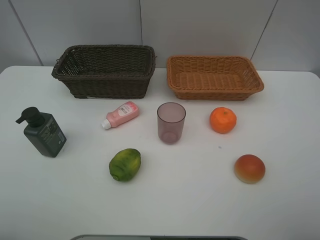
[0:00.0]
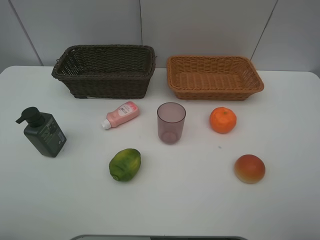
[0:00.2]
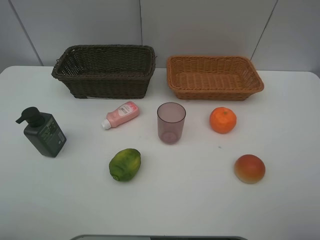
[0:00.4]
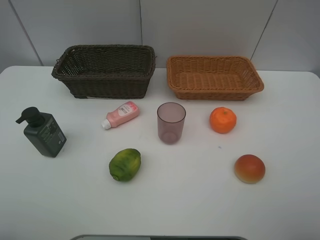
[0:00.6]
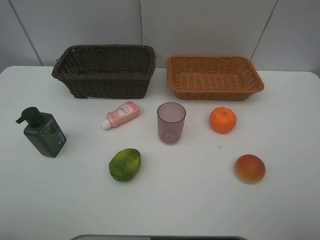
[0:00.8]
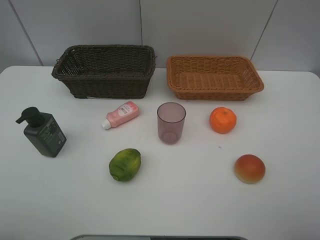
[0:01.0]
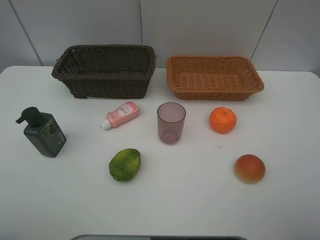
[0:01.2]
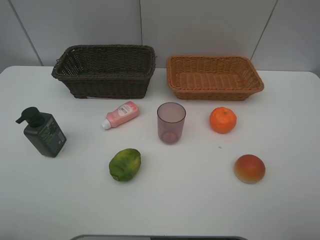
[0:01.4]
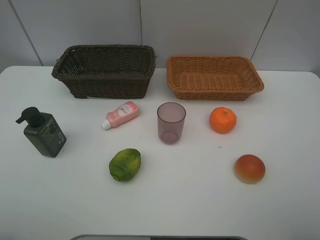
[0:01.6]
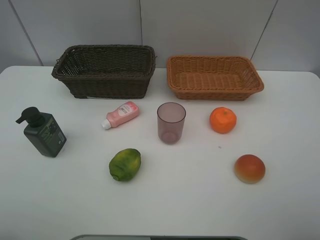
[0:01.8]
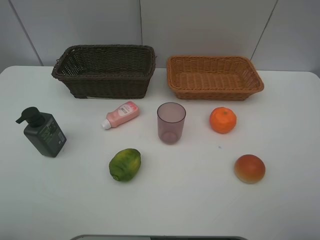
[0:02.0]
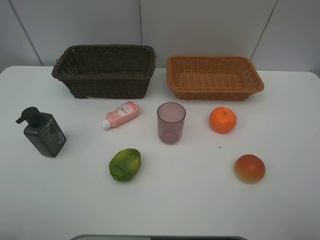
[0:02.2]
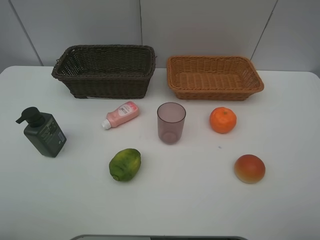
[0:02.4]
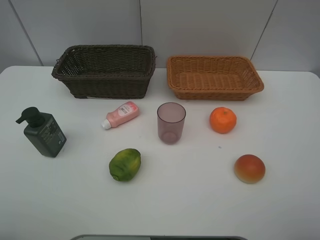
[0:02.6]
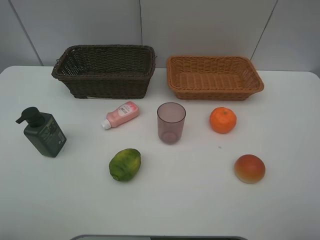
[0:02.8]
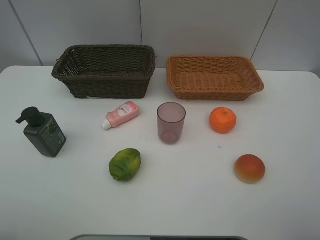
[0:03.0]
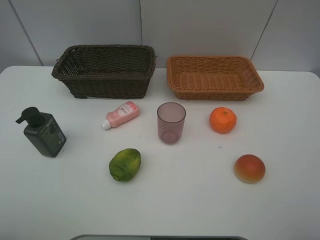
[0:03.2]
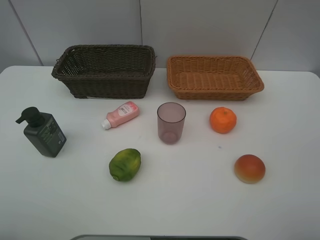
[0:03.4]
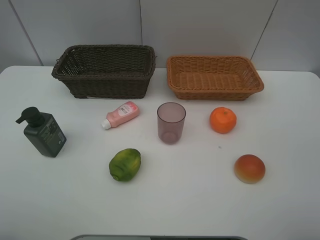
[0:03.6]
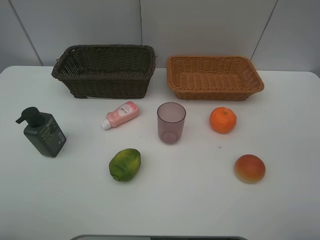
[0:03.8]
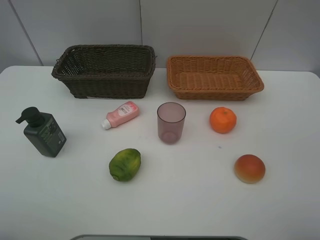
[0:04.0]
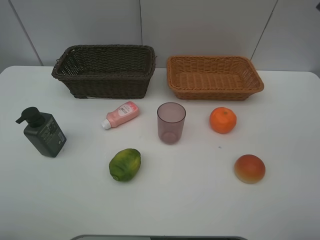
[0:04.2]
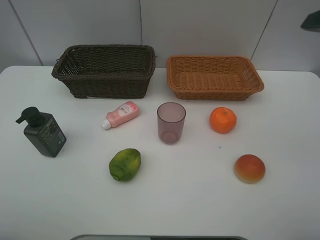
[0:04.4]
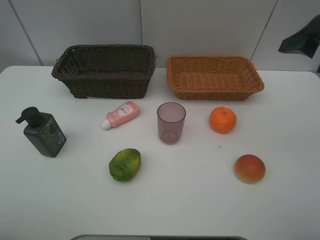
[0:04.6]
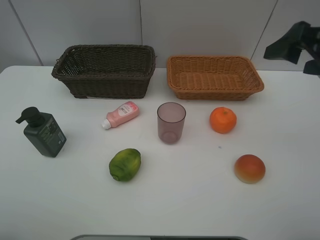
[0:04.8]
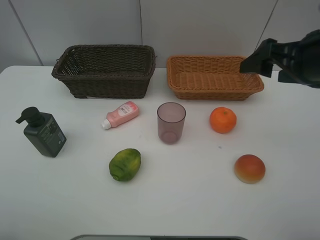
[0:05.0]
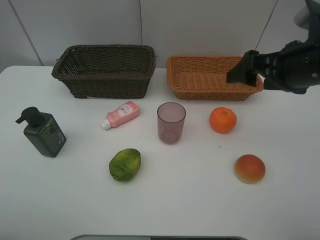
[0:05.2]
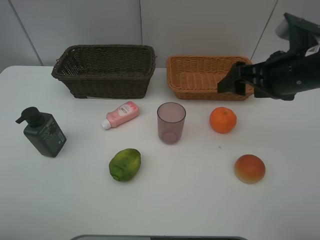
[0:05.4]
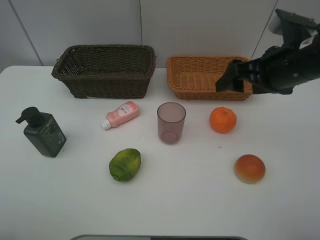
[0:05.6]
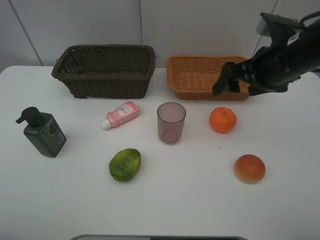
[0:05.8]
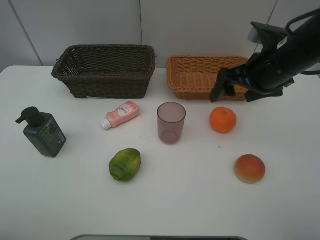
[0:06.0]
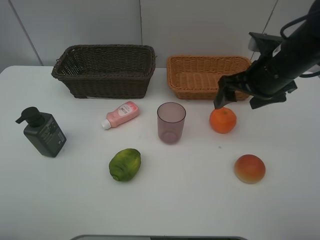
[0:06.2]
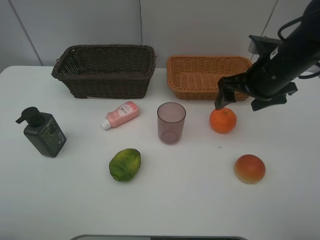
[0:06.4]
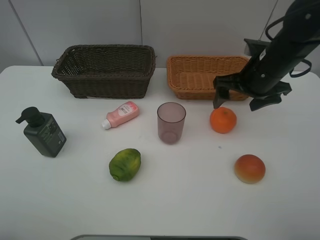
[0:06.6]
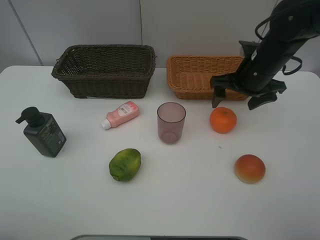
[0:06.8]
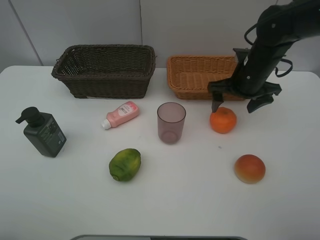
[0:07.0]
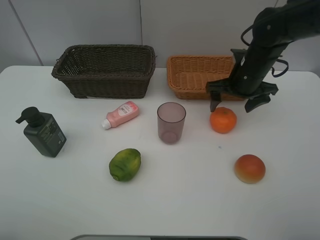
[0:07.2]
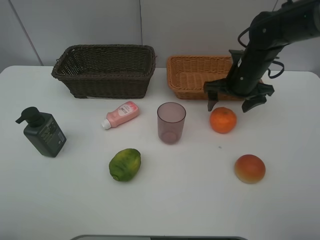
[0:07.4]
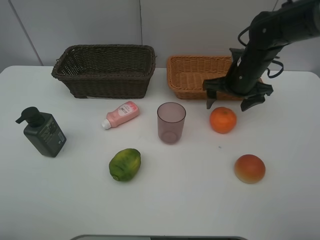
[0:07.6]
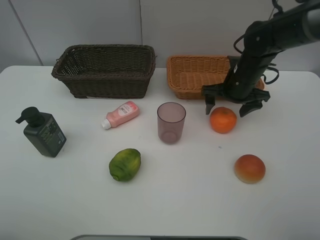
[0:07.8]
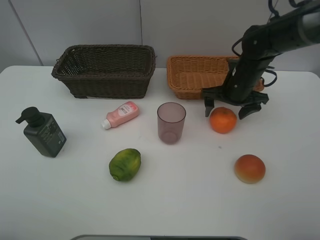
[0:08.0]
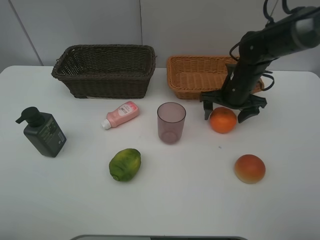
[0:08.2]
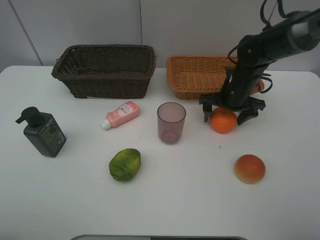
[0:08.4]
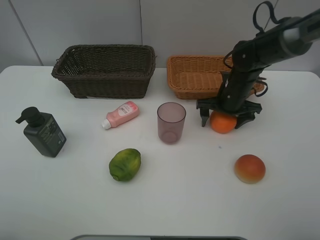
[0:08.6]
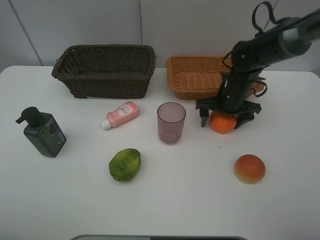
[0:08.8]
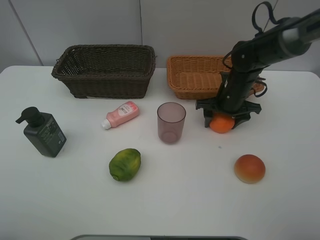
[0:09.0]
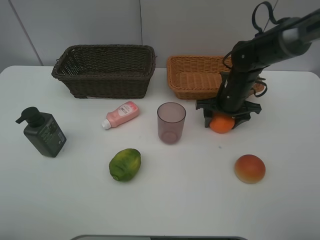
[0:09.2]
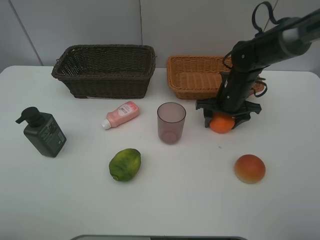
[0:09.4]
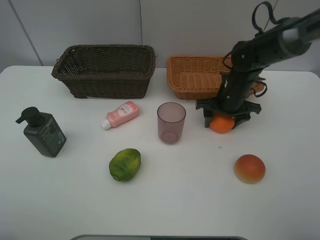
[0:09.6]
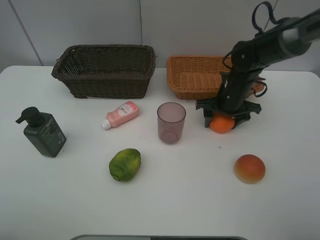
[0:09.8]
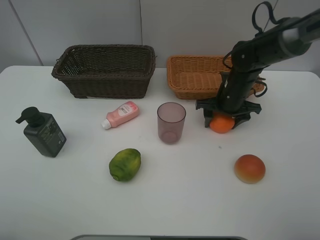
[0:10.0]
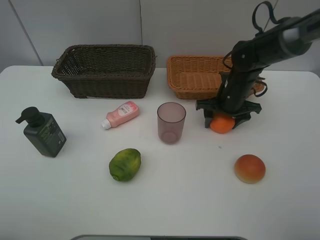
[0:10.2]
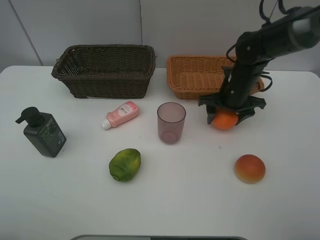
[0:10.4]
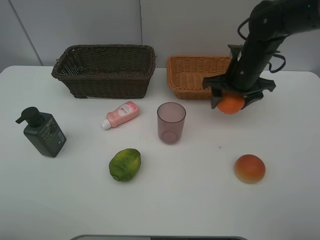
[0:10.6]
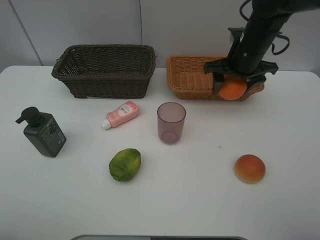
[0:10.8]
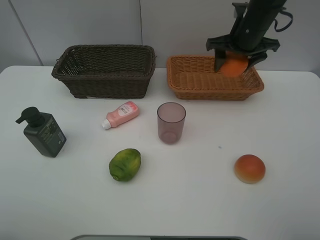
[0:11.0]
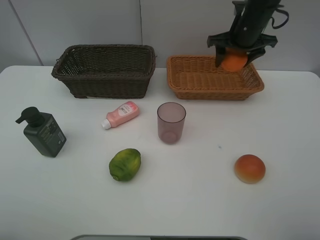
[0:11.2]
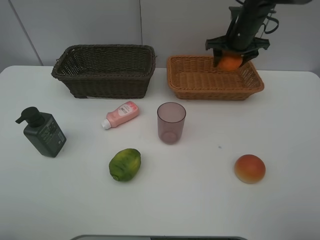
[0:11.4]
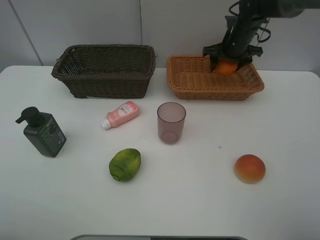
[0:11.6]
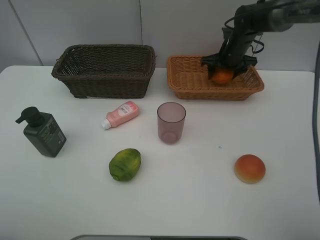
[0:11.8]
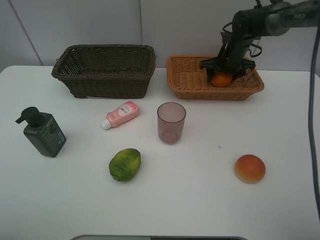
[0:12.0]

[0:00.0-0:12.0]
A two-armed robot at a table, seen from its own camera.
Task of the whole recording: place multiple objects separately in different baskets.
0:04.4 to 0:06.0: The right gripper goes approximately 15 cm forward, to the left and downward.
0:06.0 to 0:07.6: The right gripper travels forward and downward by approximately 10 cm.
0:07.6 to 0:09.0: The right gripper heads downward, covering about 5 cm, and closes its fingers.
0:09.0 to 0:10.4: There are only small adjustments of the grippers.
0:10.4 to 0:12.0: The right gripper goes some 15 cm forward.

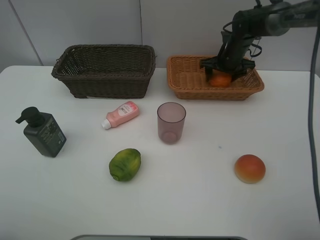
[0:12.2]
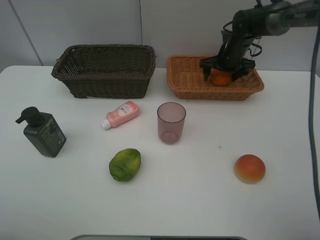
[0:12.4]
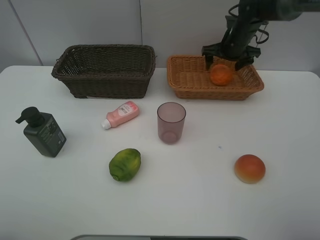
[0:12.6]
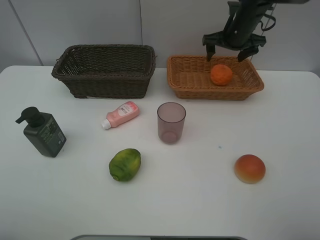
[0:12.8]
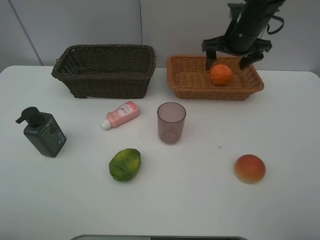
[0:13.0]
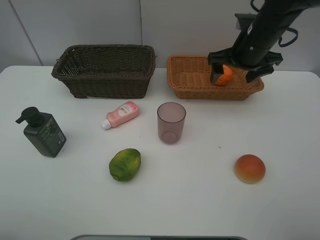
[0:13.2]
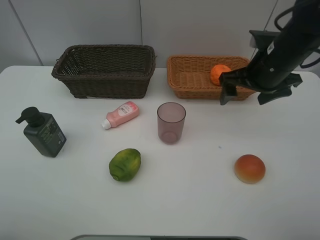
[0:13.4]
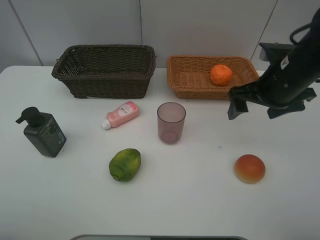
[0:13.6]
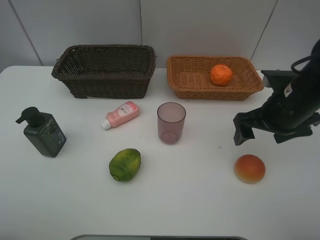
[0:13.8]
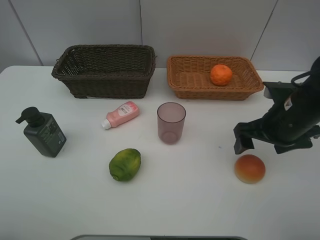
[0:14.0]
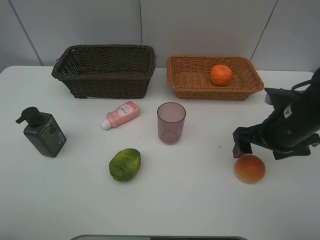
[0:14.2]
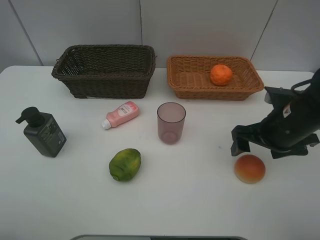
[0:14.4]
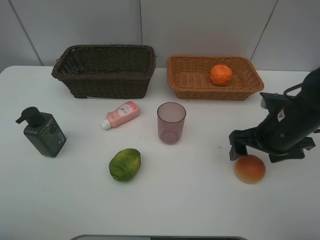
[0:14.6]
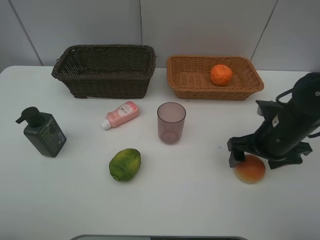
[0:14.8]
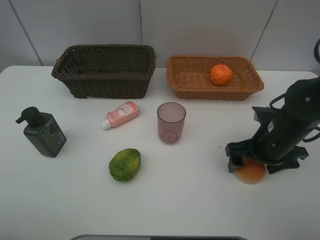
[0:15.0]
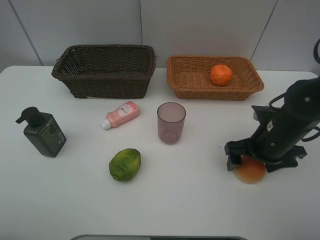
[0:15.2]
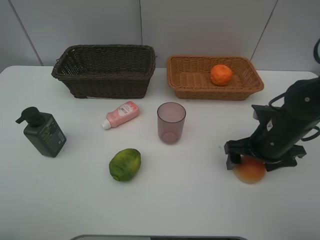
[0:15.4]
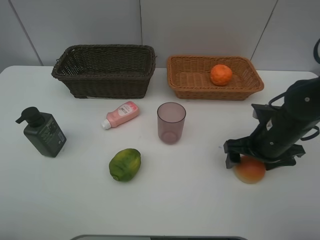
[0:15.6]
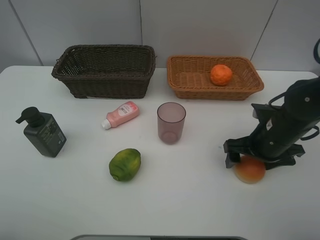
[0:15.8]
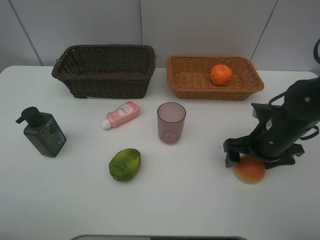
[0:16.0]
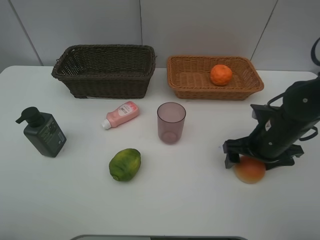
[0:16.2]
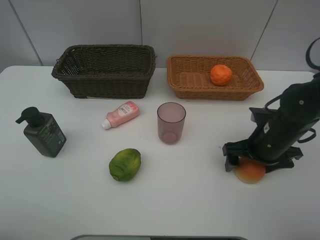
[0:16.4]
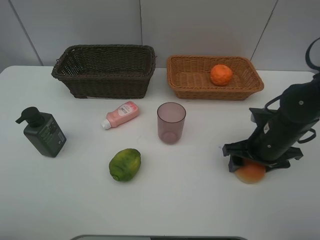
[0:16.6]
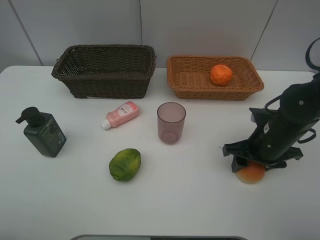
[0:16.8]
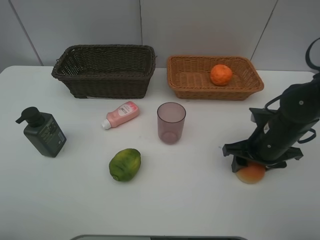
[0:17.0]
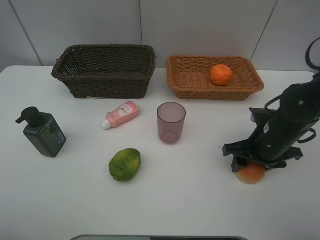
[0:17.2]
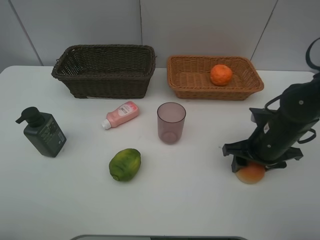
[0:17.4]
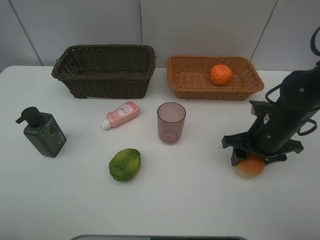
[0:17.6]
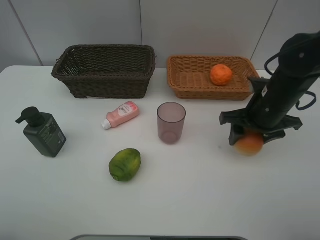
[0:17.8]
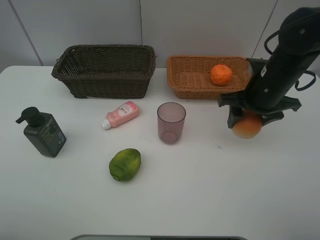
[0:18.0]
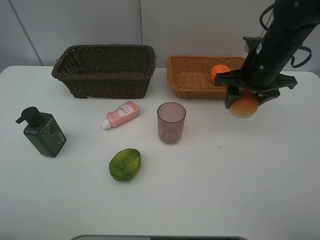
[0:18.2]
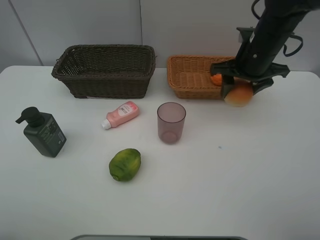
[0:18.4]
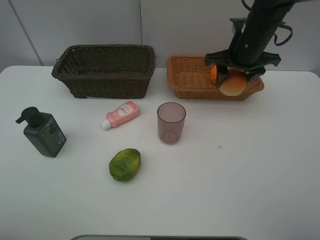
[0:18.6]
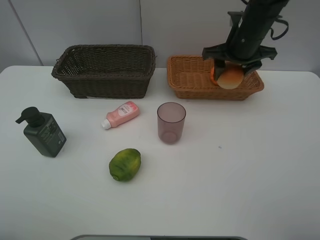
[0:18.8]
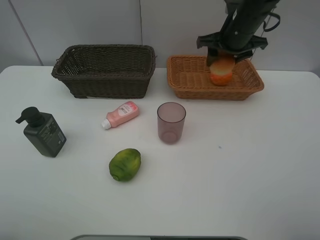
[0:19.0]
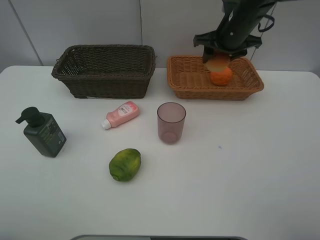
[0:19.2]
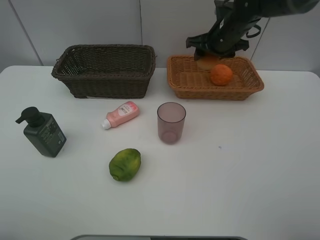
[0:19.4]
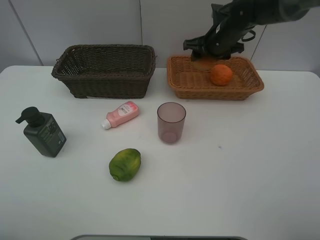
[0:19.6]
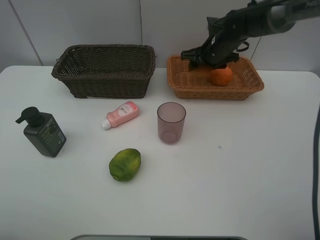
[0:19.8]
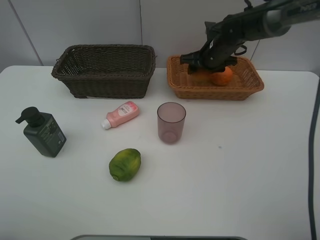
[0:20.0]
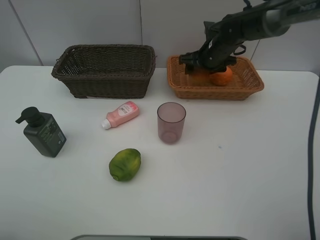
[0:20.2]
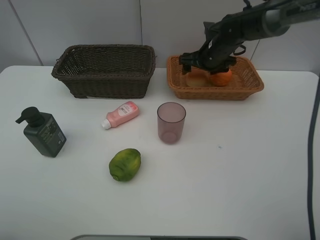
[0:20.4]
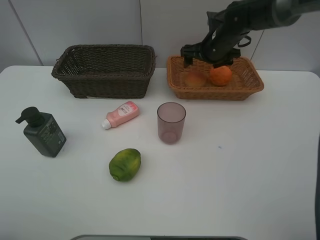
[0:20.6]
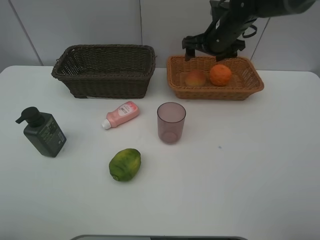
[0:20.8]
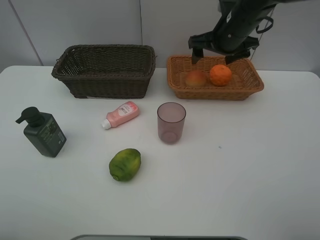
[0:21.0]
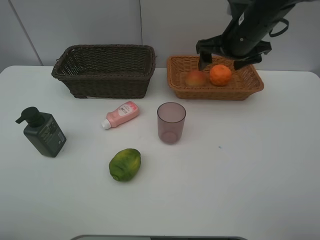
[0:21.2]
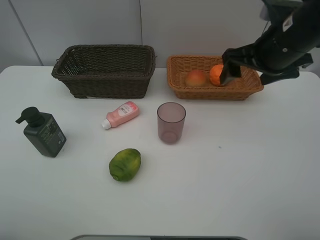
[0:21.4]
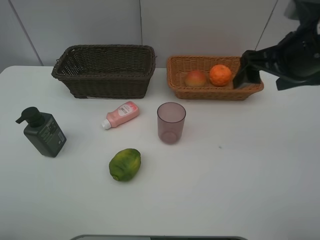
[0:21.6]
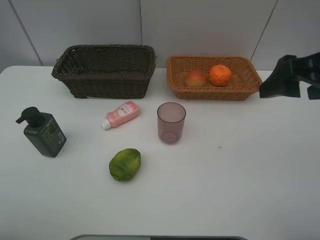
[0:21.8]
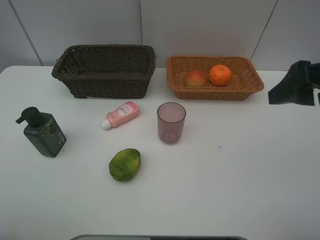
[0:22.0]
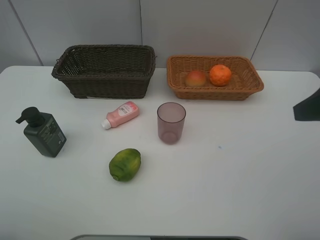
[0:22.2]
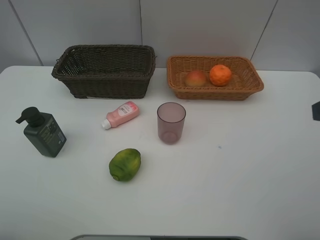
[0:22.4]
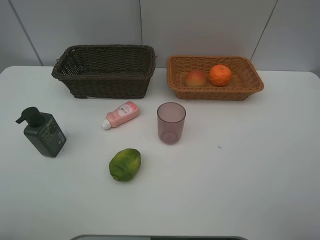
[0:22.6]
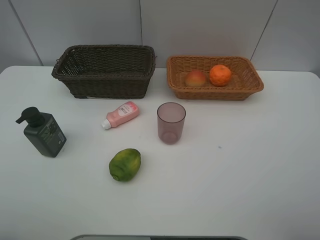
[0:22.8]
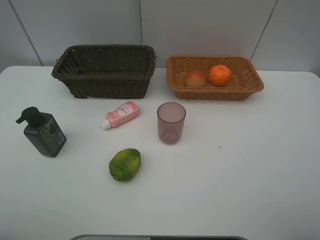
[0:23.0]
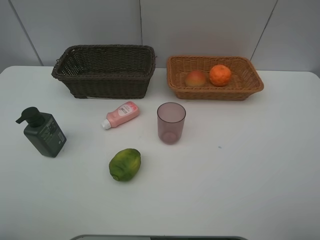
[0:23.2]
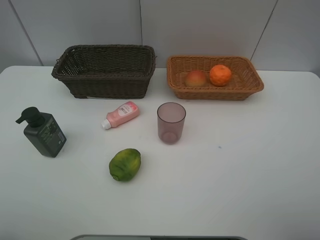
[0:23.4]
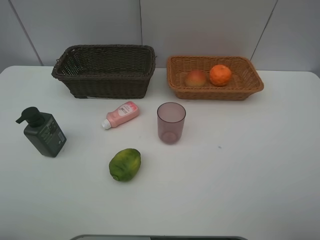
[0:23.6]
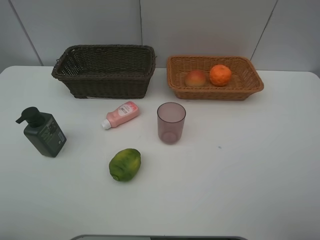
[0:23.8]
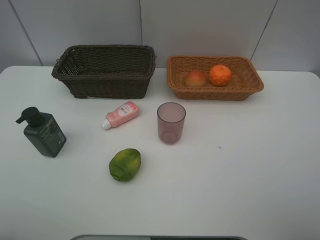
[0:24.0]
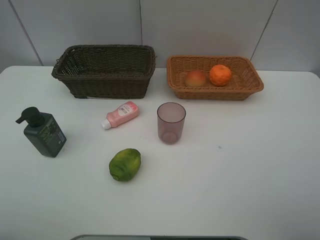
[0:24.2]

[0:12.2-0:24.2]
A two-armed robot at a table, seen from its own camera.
Task of the whole recording: place multiple objects separately in different baskets.
0:12.2 to 0:13.8: The right gripper moves backward, about 25 cm.
0:13.8 to 0:15.2: The right gripper moves downward, about 5 cm.
0:15.2 to 0:16.6: The right gripper closes its fingers.
0:16.6 to 0:18.2: The right gripper shifts approximately 15 cm upward and forward.
0:18.2 to 0:19.8: The right gripper is displaced forward by approximately 15 cm.
0:19.8 to 0:21.2: The right gripper is displaced backward and upward by roughly 15 cm, and opens.
0:21.2 to 0:22.6: The right gripper moves backward, some 30 cm.
